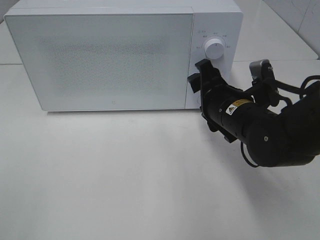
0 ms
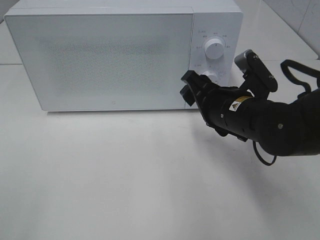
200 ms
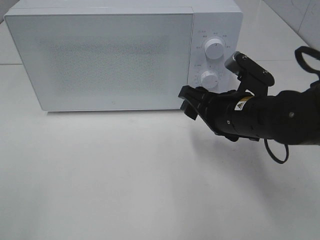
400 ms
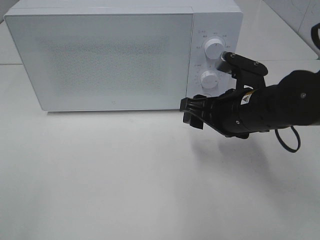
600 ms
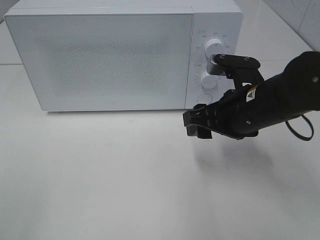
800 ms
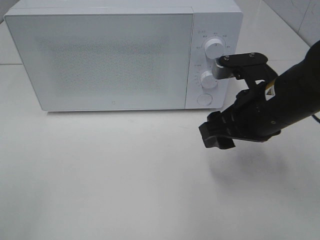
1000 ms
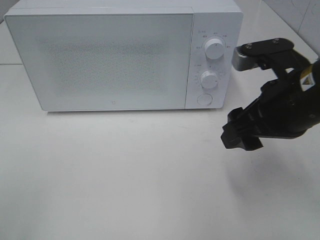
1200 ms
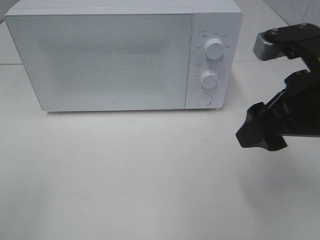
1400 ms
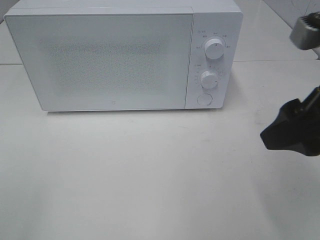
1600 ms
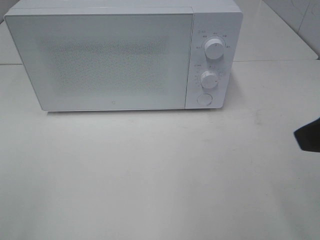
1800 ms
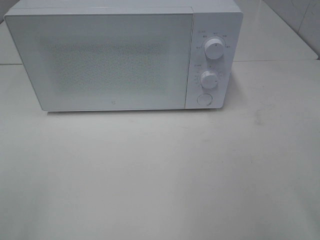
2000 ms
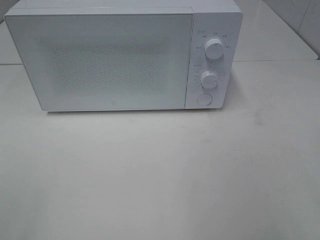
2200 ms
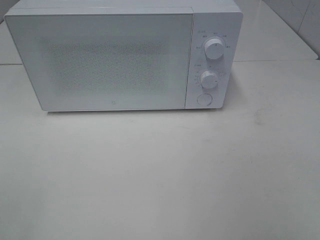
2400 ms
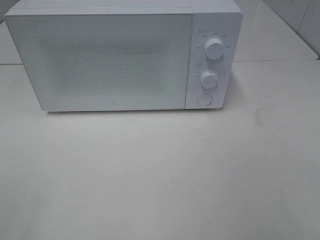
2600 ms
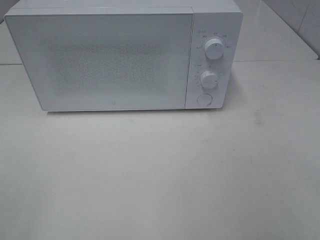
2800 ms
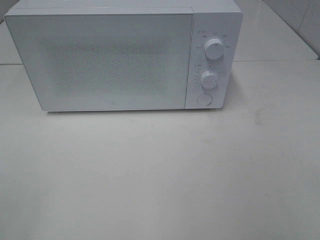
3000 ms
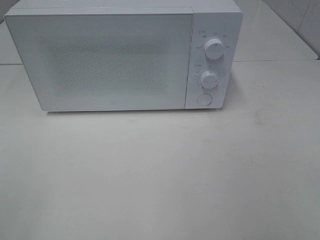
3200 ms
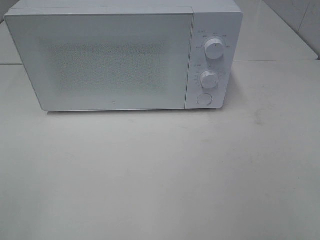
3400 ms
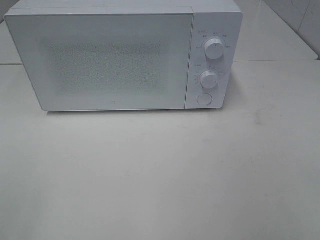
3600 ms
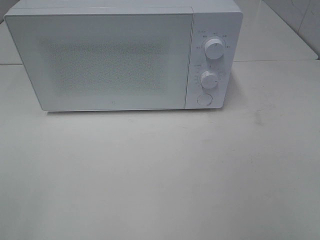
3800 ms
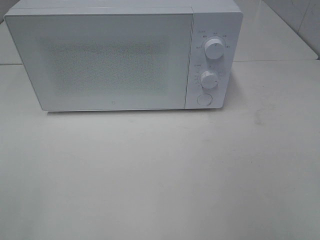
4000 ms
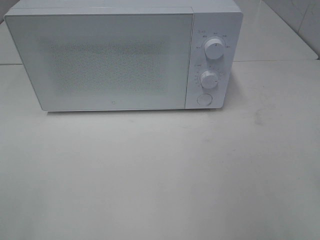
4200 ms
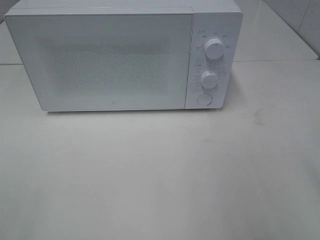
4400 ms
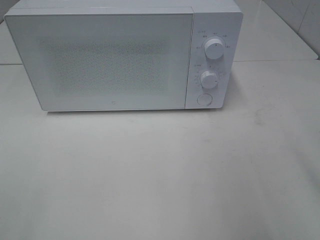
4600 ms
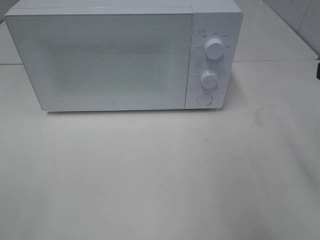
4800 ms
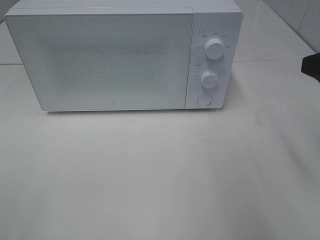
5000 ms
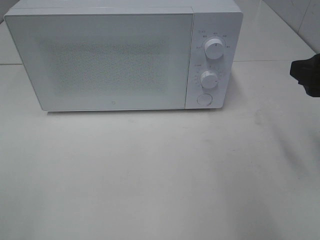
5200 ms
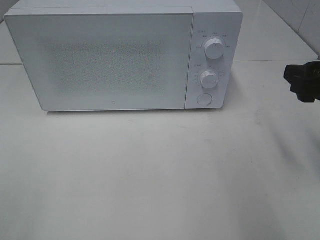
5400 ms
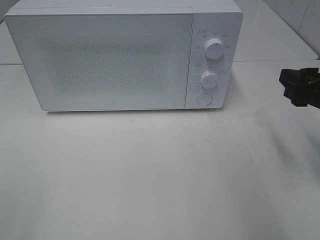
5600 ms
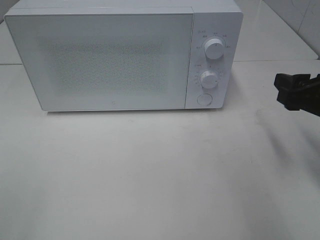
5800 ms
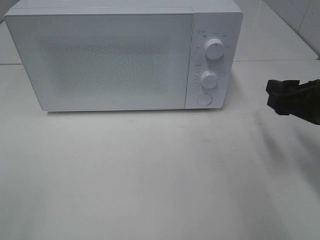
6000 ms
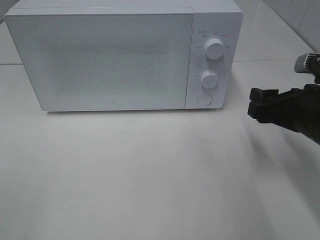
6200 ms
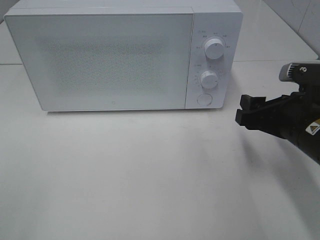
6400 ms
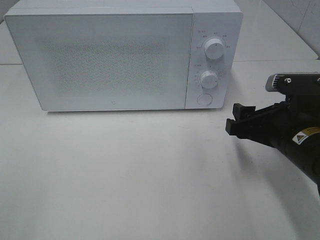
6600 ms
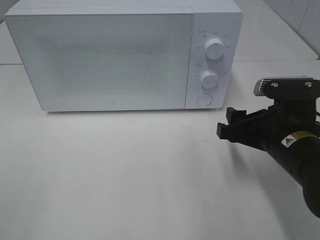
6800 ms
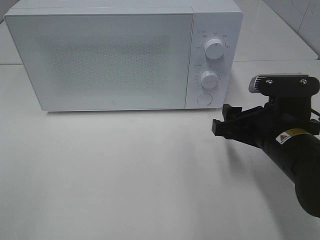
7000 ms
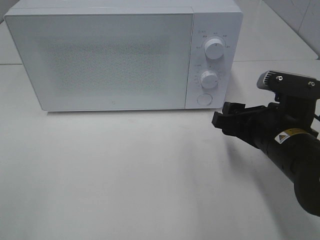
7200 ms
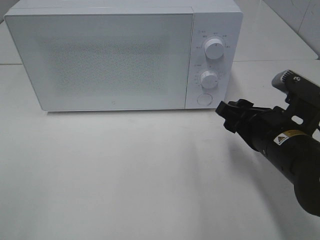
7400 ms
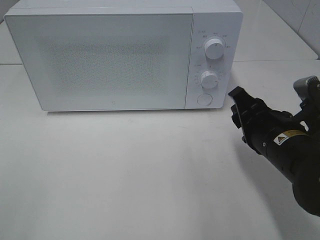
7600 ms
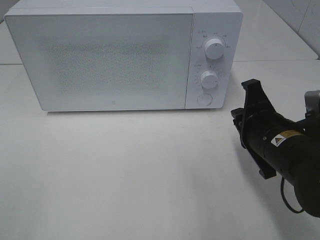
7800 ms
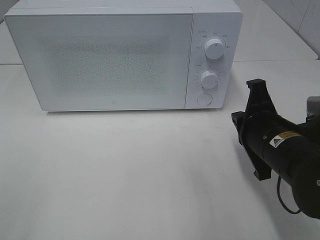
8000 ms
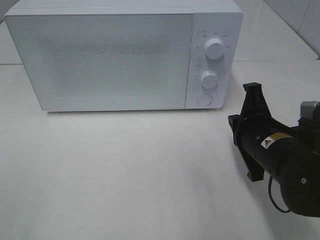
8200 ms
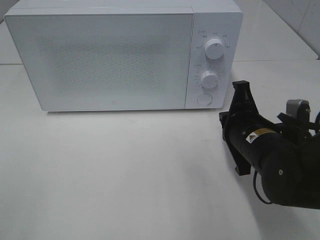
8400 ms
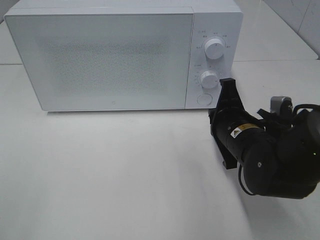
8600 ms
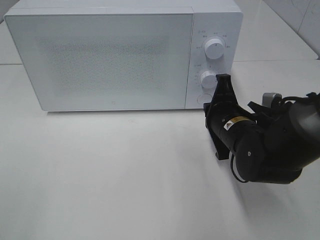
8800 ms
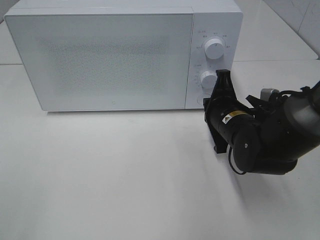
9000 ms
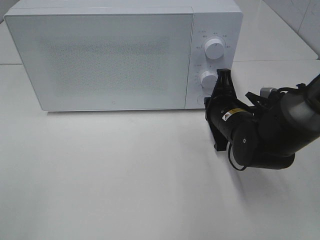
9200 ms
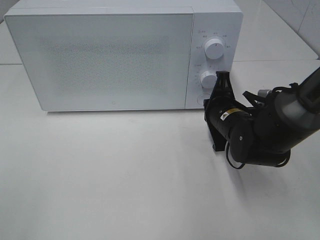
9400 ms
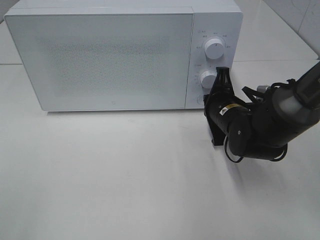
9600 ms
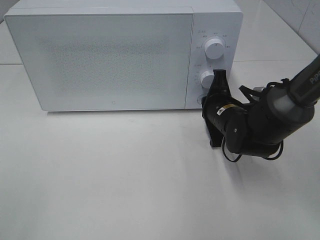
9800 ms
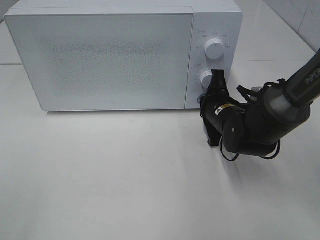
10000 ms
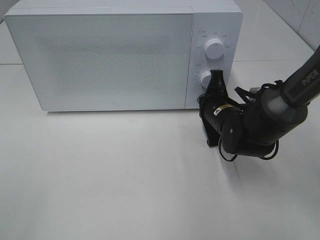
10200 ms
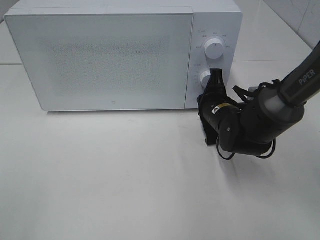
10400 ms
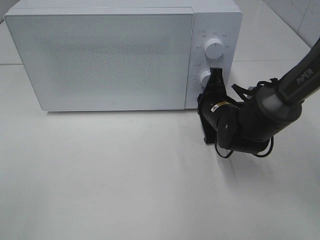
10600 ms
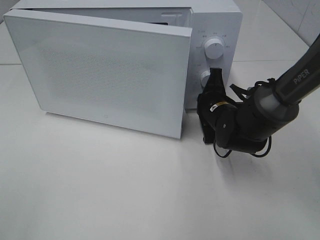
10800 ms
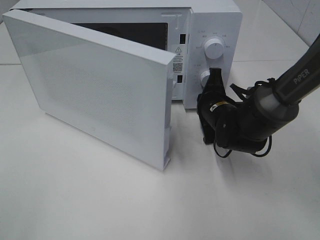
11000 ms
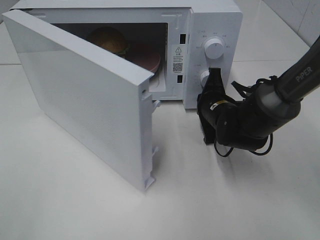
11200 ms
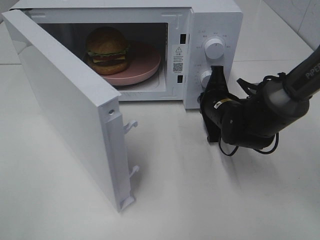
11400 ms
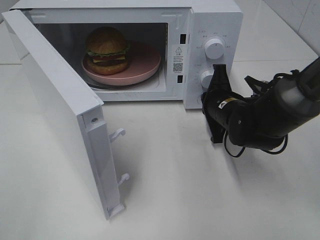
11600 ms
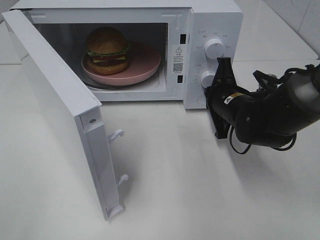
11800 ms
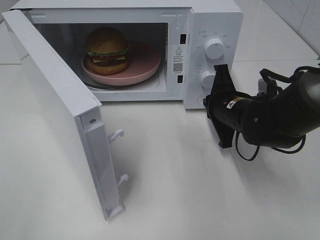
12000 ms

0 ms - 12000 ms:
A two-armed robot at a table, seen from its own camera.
Task of the whole recording: Heat the burger.
0 ms - 1600 ms: The right gripper goes approximately 20 cm upward, backward and to the right.
1600 ms - 3000 ms: The right gripper moves backward and to the right, roughly 20 cm.
4400 ms - 6000 ms: The right gripper is displaced downward and forward by about 15 cm.
6000 ms - 7600 ms: The right gripper moves to the left, roughly 10 cm.
7600 ms - 9000 ms: The right gripper shifts some 10 cm forward, and closes its fingers.
9000 ms - 10400 ms: The right gripper changes place by approximately 5 cm.

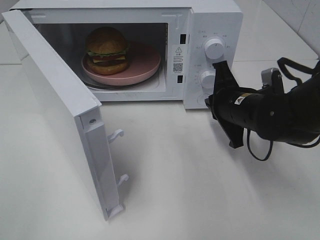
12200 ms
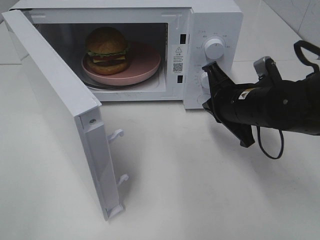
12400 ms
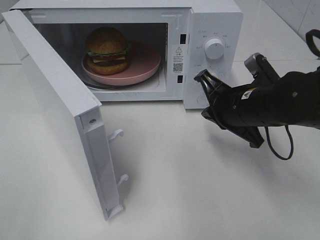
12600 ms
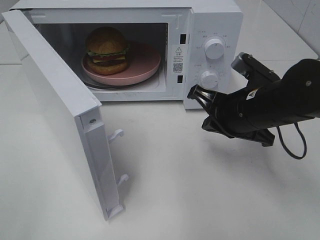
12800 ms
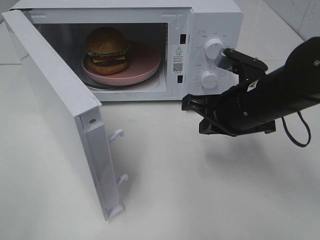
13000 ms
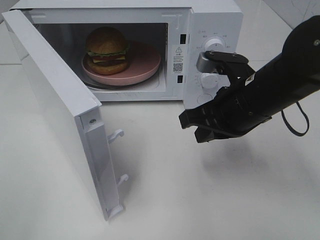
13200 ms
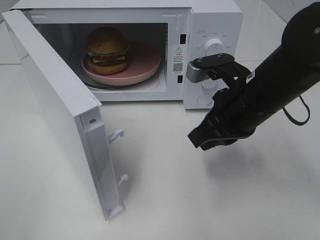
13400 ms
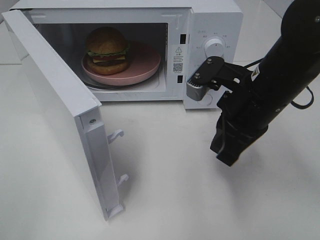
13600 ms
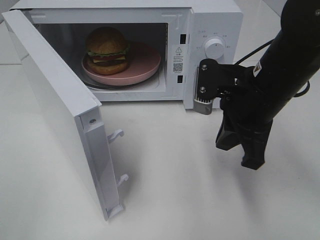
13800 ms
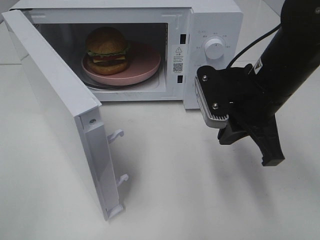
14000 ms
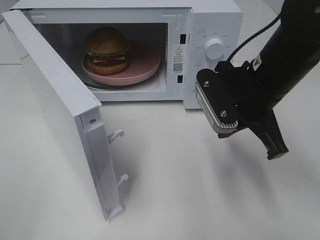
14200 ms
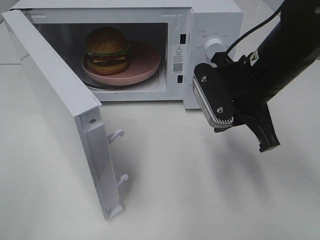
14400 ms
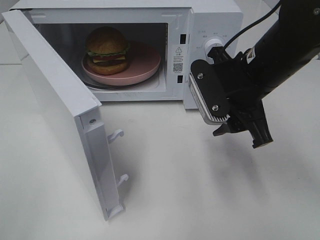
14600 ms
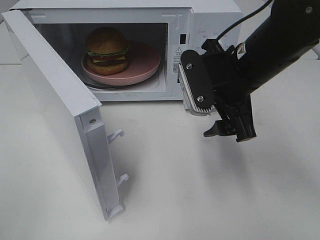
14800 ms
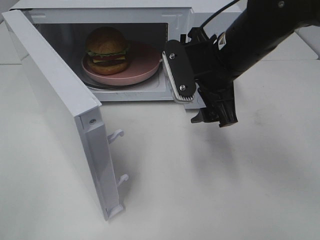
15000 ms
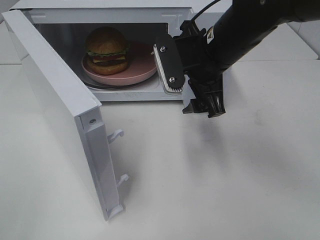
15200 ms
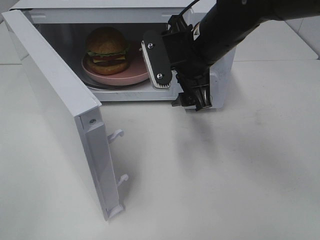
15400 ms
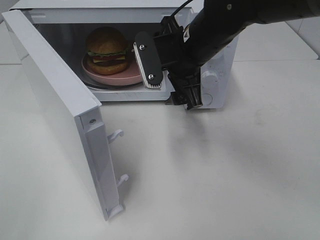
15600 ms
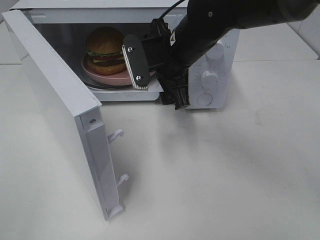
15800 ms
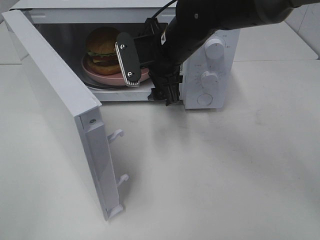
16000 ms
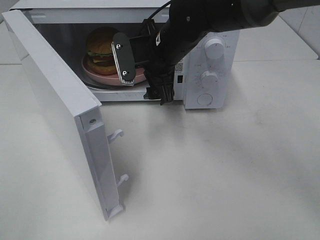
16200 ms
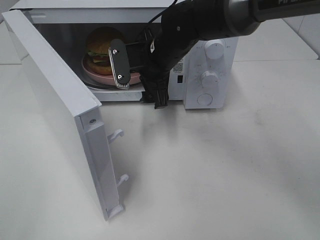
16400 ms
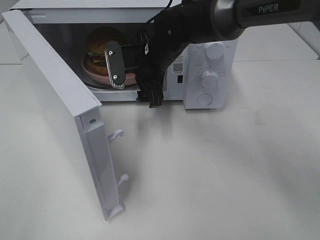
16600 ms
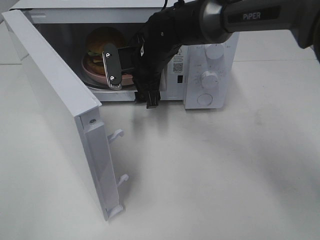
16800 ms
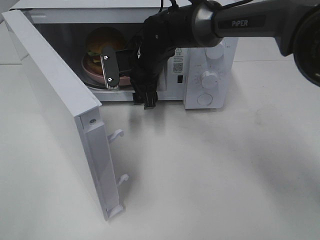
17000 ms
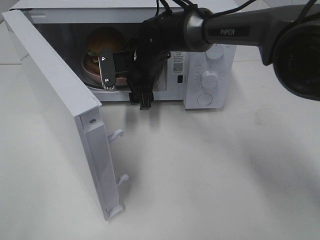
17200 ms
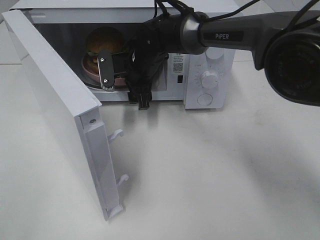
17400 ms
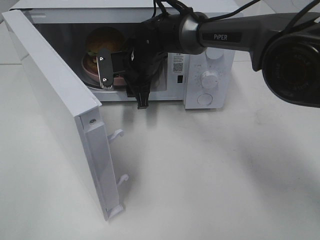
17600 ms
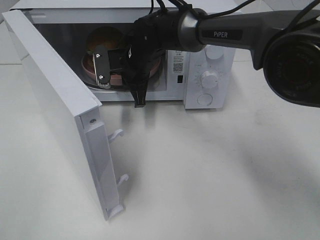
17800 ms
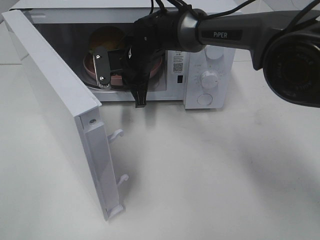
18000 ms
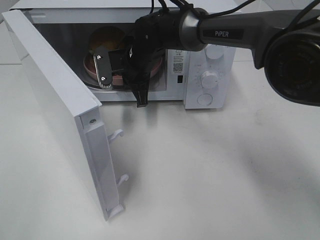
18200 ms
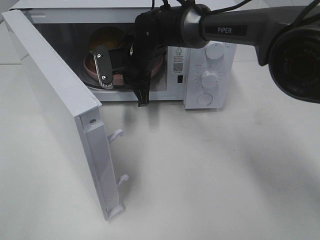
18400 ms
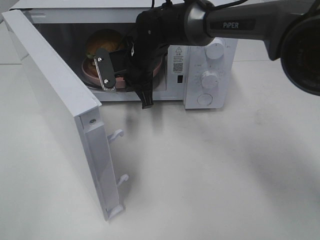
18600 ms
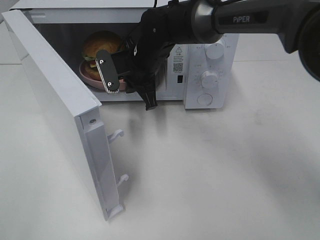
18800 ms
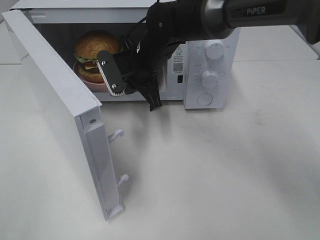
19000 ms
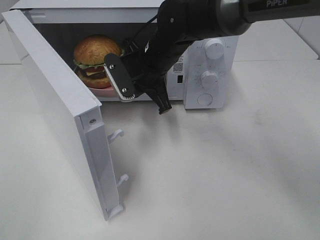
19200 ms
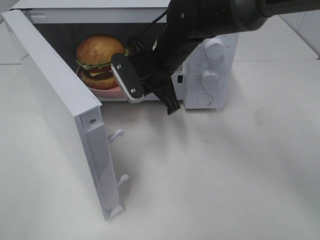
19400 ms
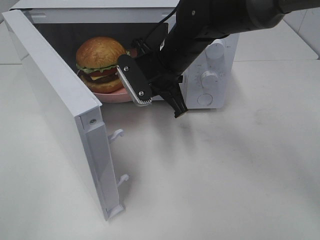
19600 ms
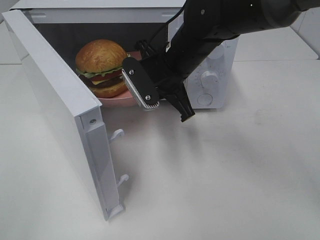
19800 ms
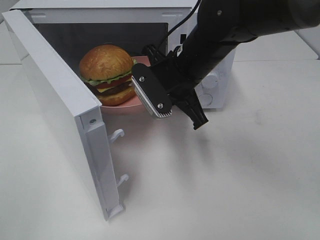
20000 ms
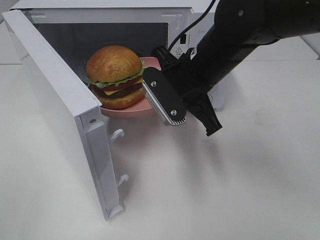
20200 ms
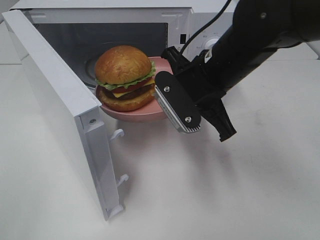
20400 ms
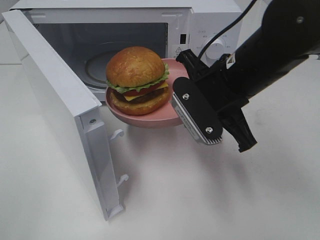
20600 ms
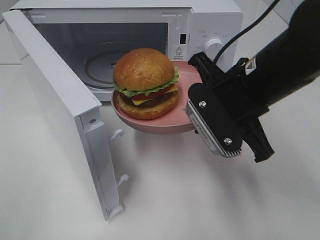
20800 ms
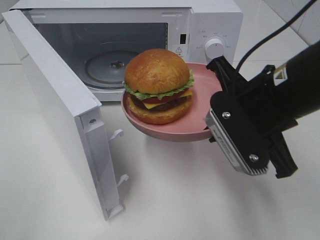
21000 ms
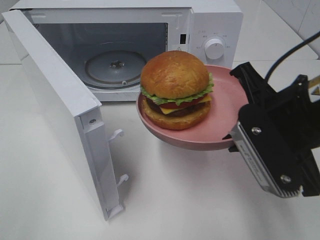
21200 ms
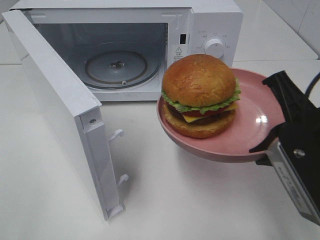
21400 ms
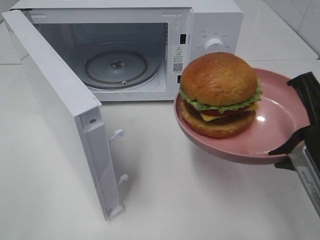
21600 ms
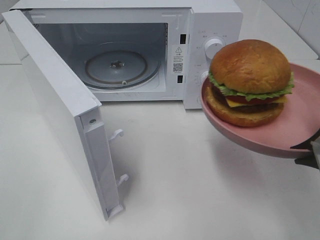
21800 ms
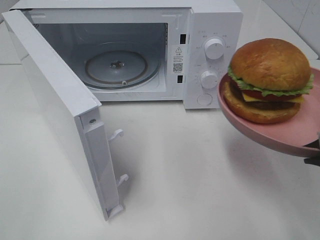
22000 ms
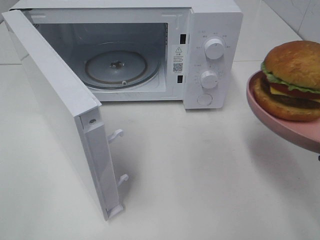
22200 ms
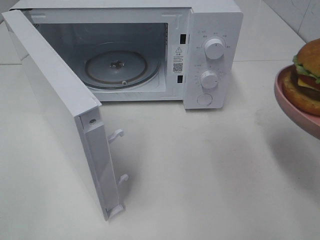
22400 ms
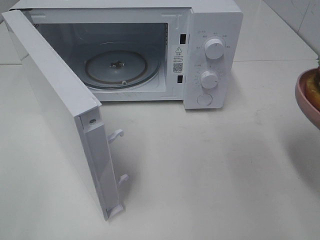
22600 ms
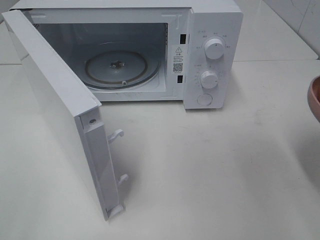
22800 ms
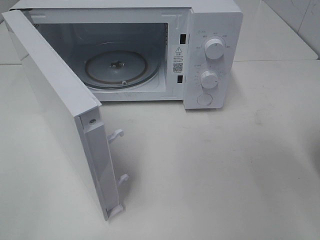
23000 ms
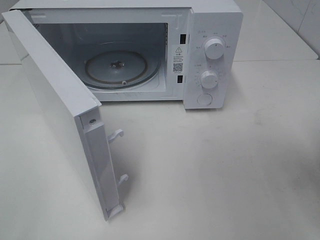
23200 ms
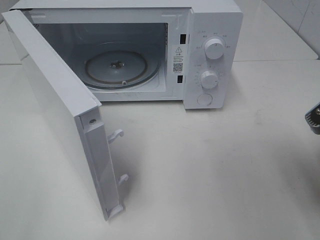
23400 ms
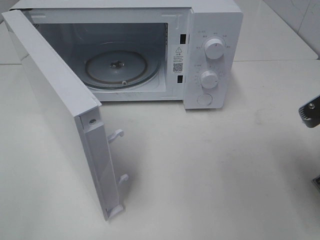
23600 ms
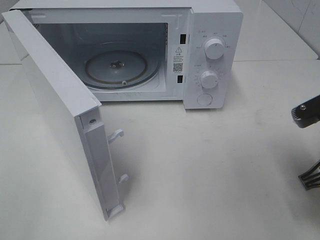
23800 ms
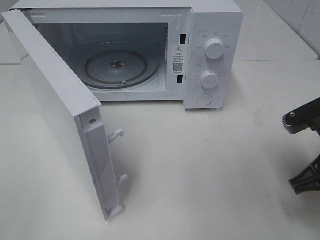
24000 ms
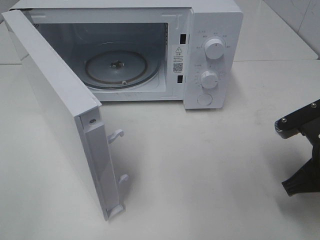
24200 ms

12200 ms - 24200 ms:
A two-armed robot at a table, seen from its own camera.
Task of the whole recording: Heat the burger.
Step, 12200 ms - 18000 ms: Right hand: grab the plate with the hamburger.
12200 ms - 13800 ms: The right gripper moves upward, roughly 10 cm.
13800 ms - 15200 ms: The right gripper is displaced forward and to the left by roughly 10 cm, and opens.
15200 ms - 16600 ms: The right gripper goes about 15 cm forward, to the left and downward.
16600 ms - 18200 ms: The right gripper changes place by roughly 5 cm, and closes up.
18200 ms - 19800 ms: The right gripper goes about 15 cm backward, to the right and upward.
19800 ms - 21200 ms: The right gripper is displaced backward and to the right by approximately 20 cm.
21200 ms - 22600 ms: The right gripper is displaced to the right and backward by roughly 10 cm.
22600 ms - 24200 ms: The right gripper travels downward and forward by some 10 cm.
